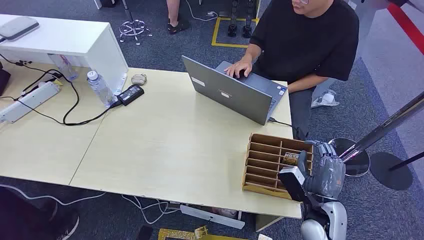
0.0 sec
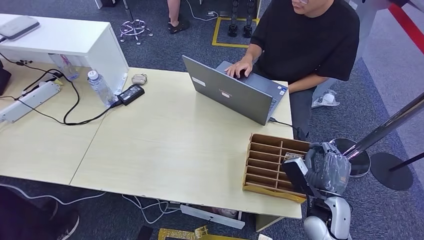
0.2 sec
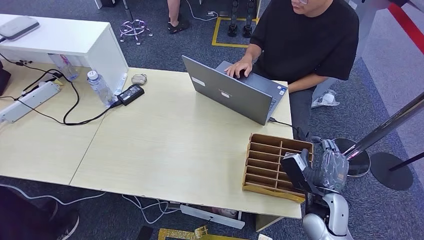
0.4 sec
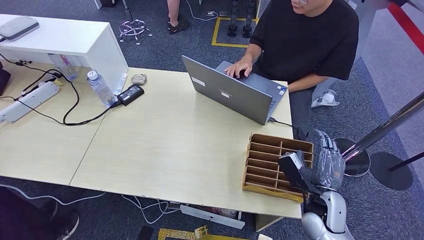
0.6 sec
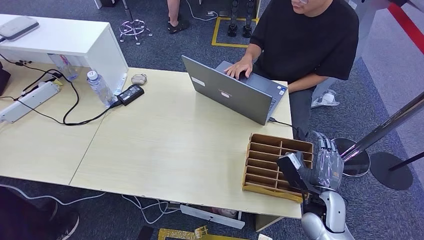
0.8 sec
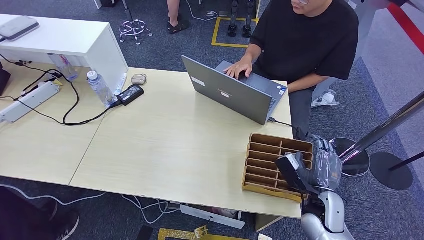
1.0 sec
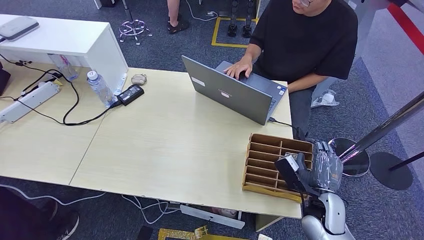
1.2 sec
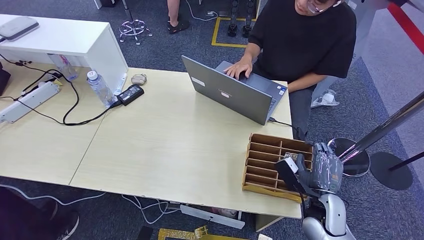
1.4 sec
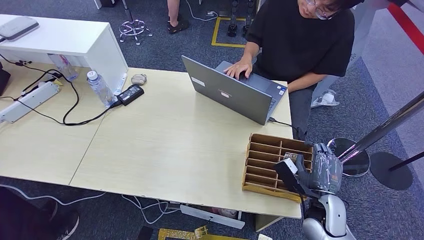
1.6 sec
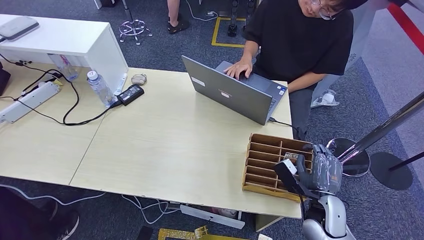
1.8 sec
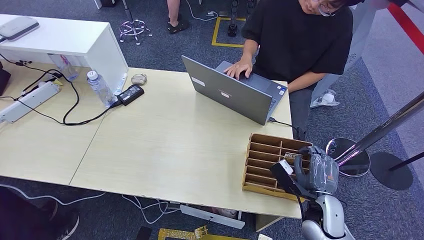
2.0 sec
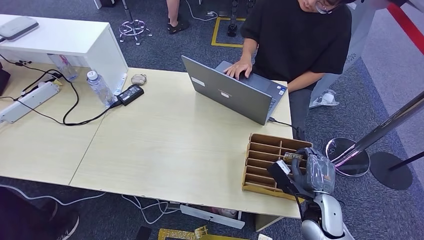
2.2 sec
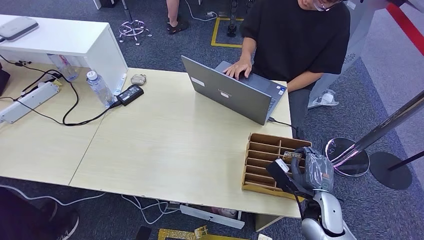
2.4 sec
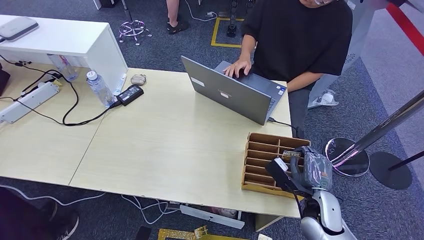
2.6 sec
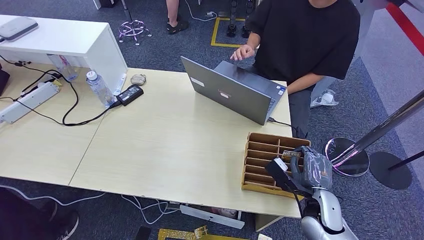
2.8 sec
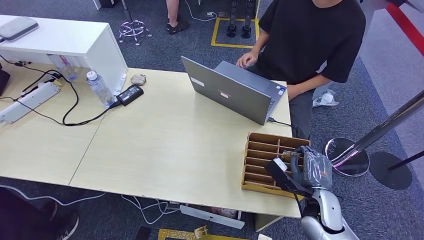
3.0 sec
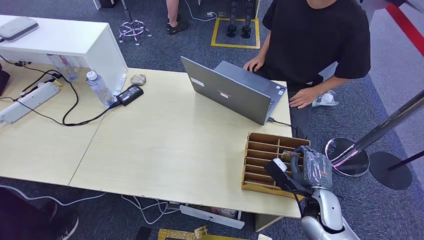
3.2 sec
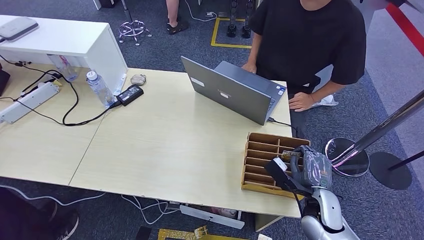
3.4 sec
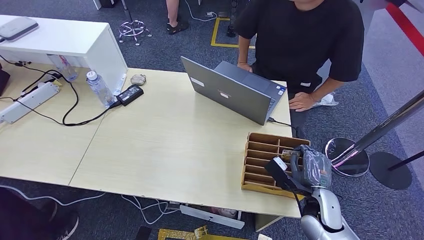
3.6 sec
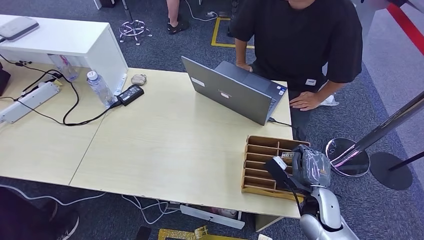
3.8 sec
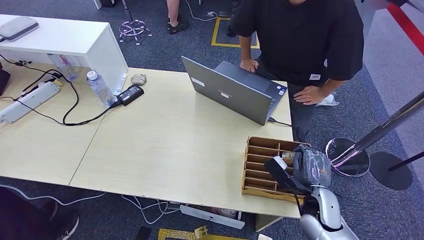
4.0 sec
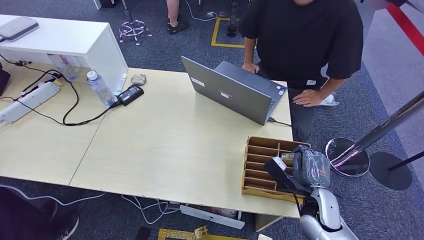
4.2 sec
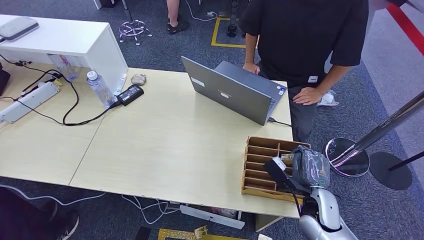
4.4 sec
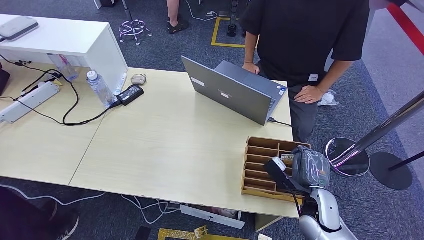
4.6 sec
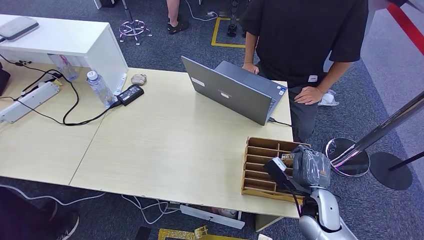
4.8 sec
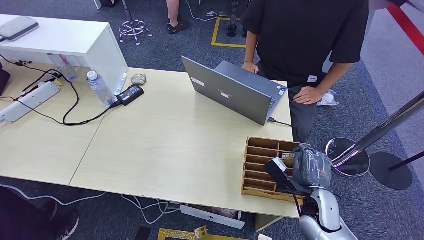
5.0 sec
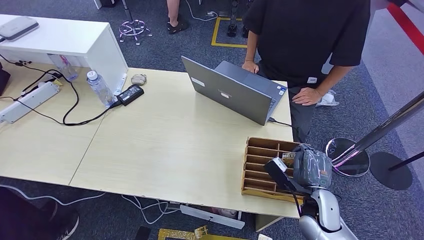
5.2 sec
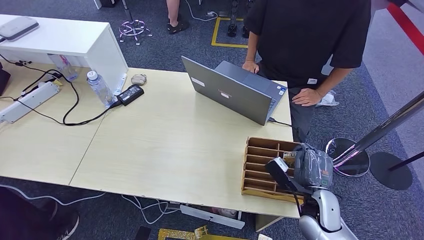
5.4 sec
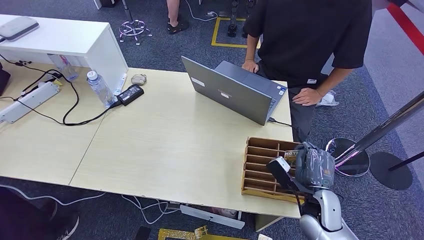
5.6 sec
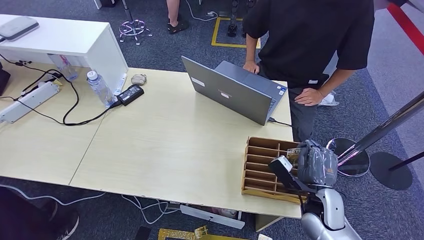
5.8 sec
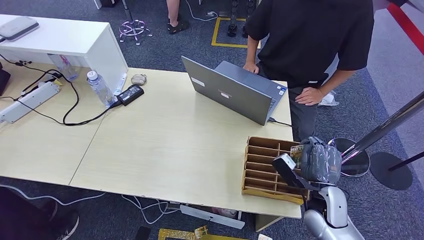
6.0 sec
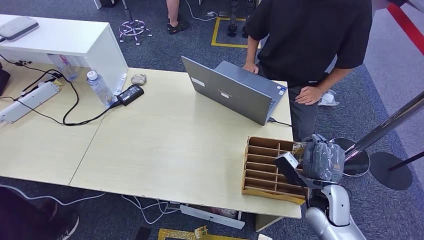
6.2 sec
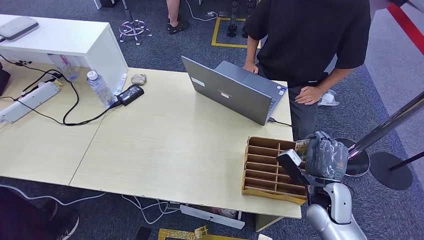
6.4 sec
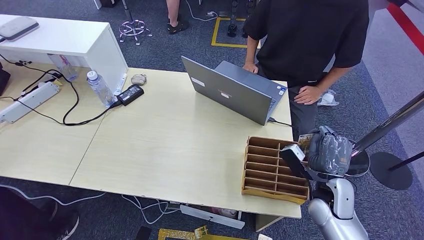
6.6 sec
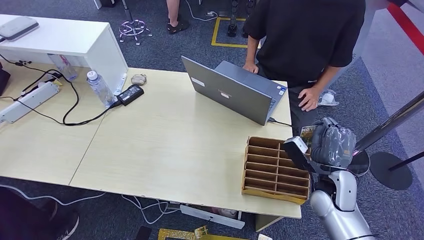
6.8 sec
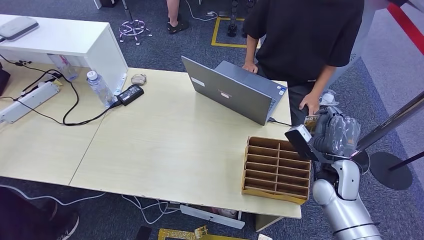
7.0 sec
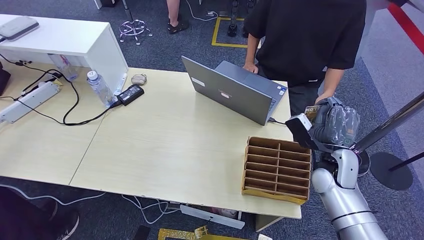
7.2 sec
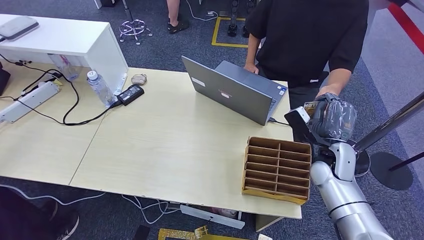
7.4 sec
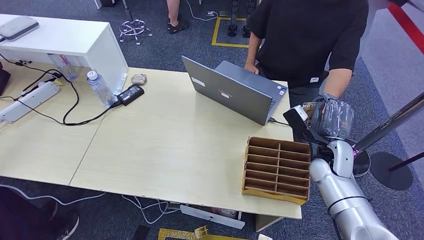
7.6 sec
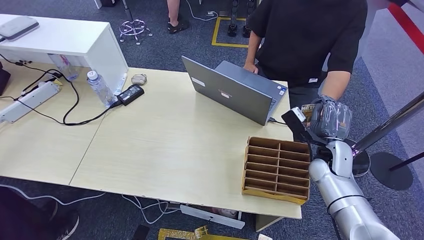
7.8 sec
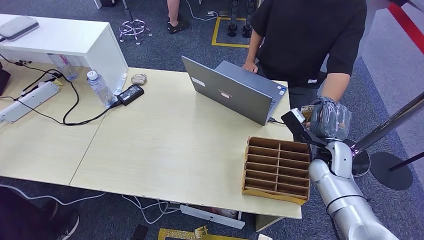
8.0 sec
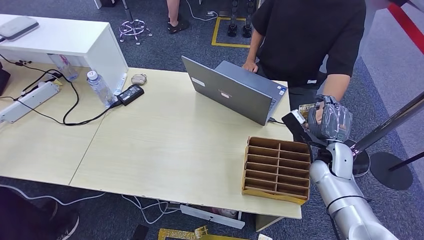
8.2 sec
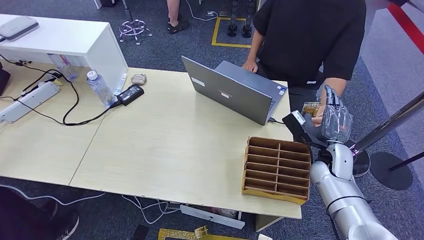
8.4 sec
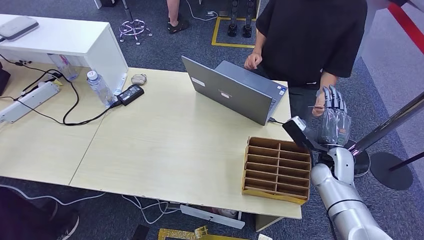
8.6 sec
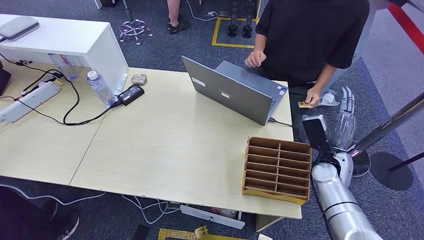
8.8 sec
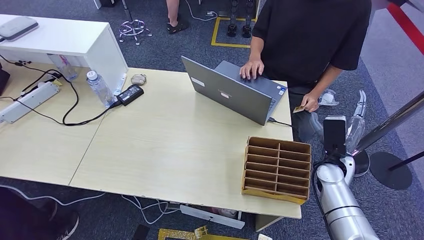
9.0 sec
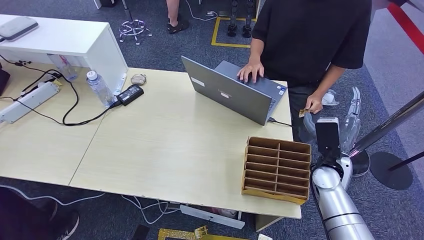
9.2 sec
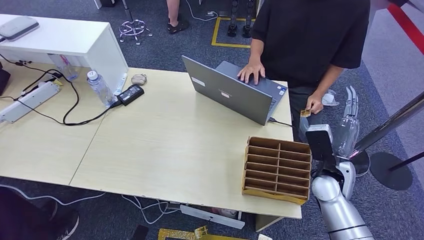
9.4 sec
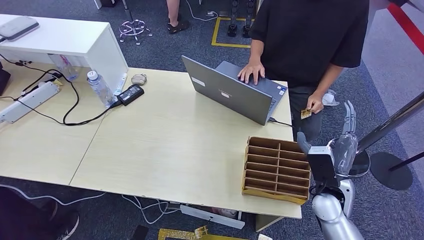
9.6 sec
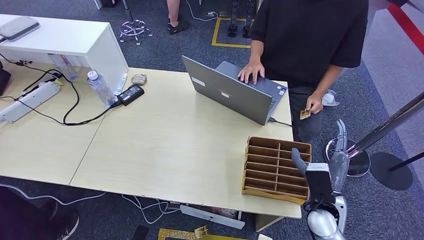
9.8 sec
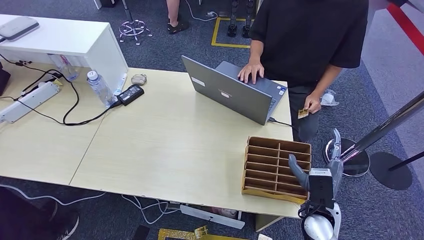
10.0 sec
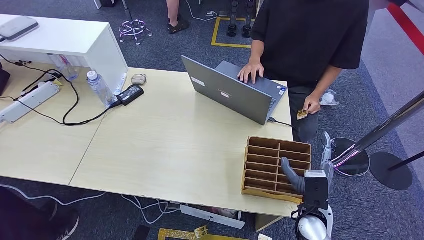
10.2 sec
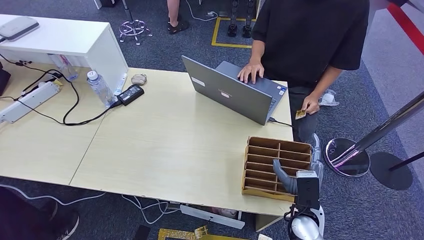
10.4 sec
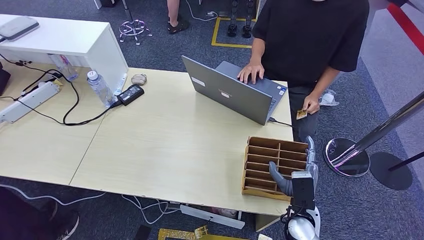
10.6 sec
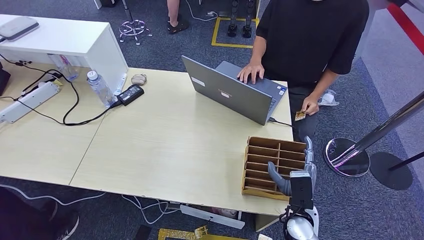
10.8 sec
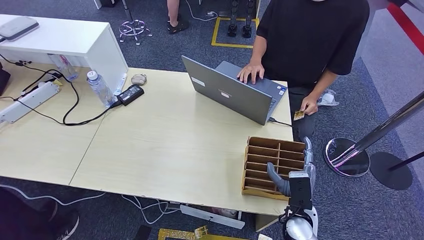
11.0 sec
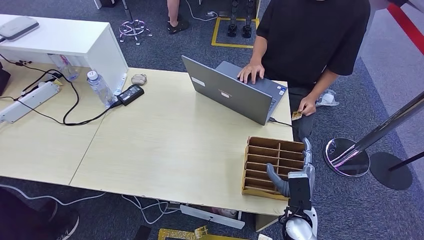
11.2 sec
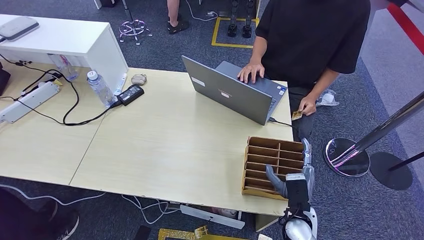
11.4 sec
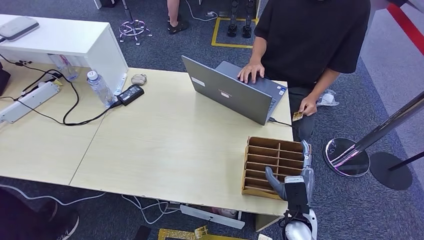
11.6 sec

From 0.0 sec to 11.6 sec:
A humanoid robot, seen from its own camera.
Step, from 0.0 sec to 6.6 sec: Pick up the room card from the card holder.
Step, from 6.8 sec to 11.6 sec: Hand the room card to the target.
From 1.4 sec to 2.8 sec: The hands move only a little.
From 2.8 sec to 4.4 sec: Both hands stay about where they are.
From 4.4 sec to 5.8 sec: There are only small adjustments of the hands.
From 5.8 sec to 7.2 sec: The right hand is displaced forward and upward by about 10 cm.
From 7.2 sec to 8.8 sec: The hands make only small movements.
From 8.8 sec to 10.2 sec: The right hand is displaced backward, to the left and downward by about 15 cm.
From 10.2 sec to 11.6 sec: The hands move only a little.
